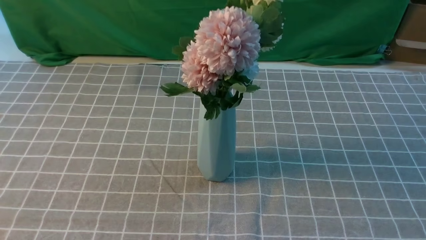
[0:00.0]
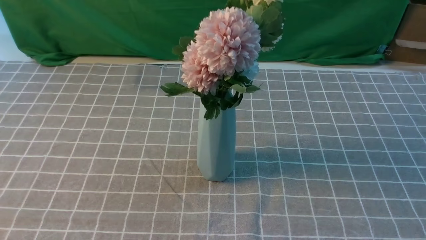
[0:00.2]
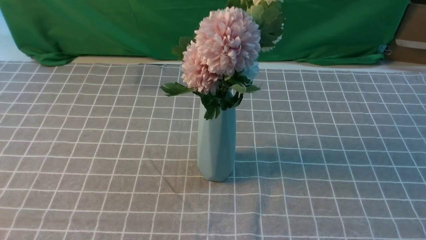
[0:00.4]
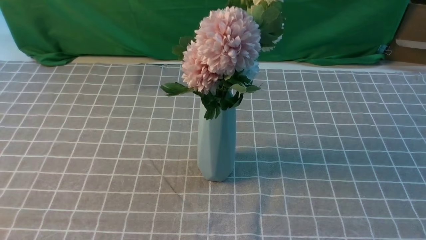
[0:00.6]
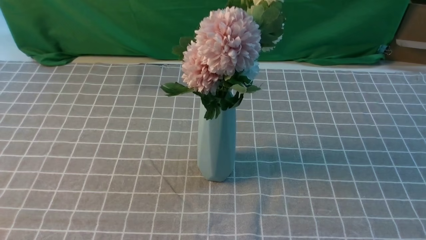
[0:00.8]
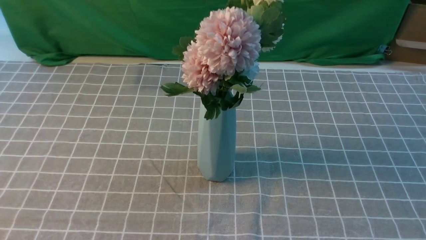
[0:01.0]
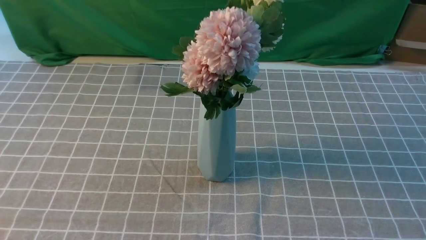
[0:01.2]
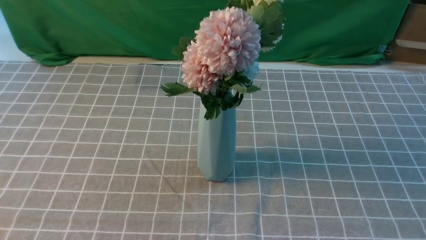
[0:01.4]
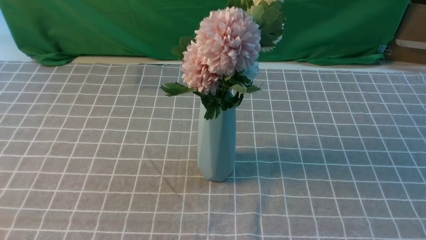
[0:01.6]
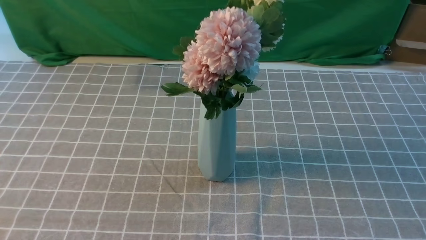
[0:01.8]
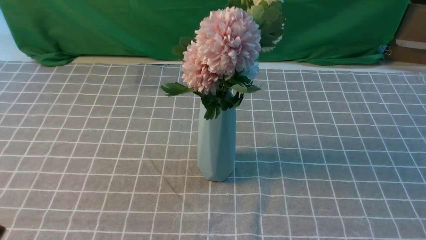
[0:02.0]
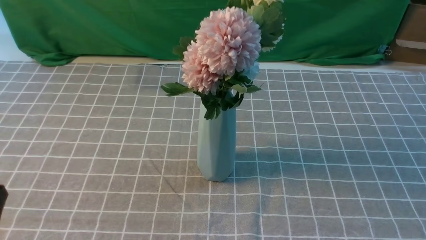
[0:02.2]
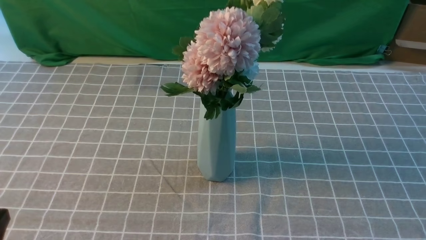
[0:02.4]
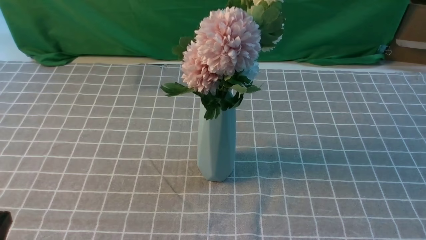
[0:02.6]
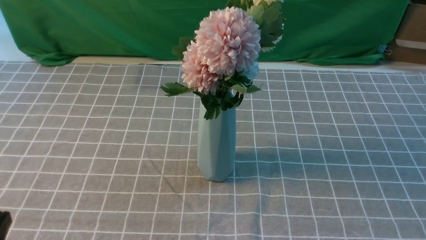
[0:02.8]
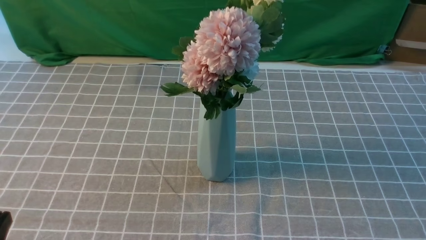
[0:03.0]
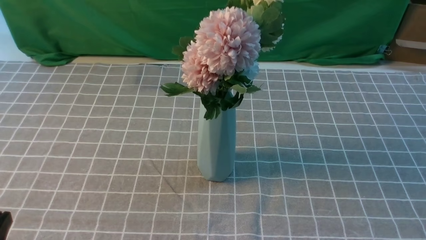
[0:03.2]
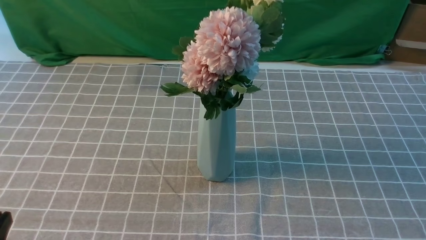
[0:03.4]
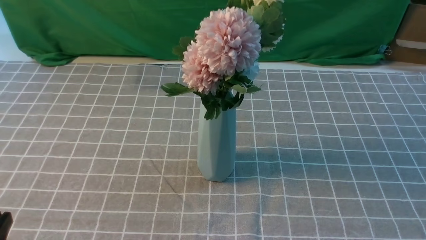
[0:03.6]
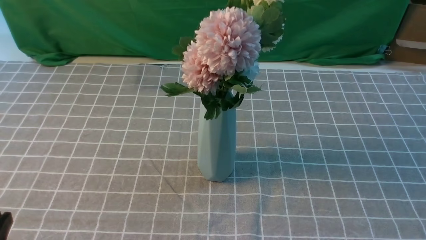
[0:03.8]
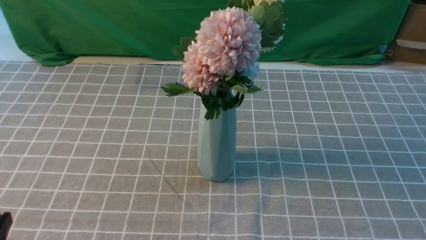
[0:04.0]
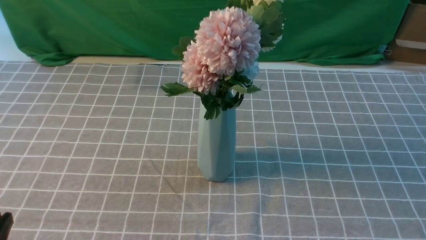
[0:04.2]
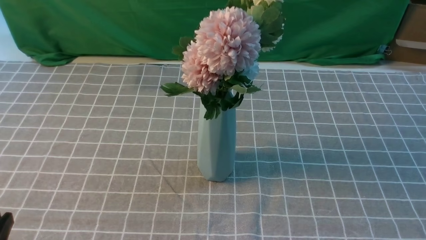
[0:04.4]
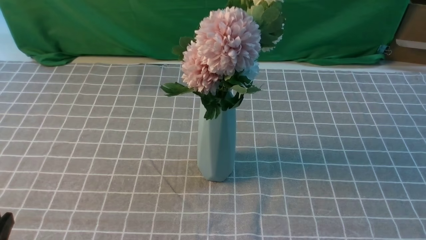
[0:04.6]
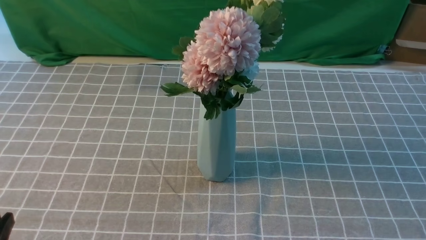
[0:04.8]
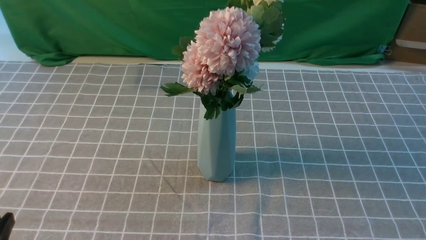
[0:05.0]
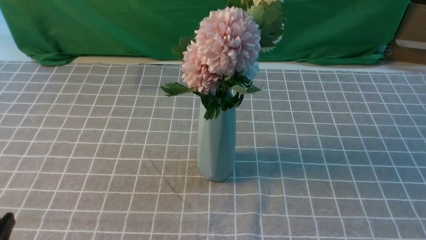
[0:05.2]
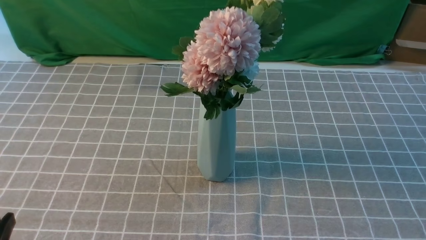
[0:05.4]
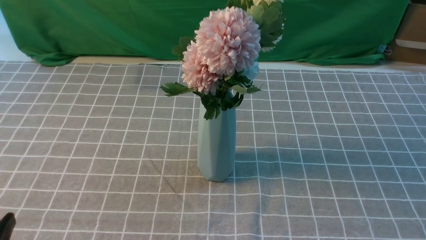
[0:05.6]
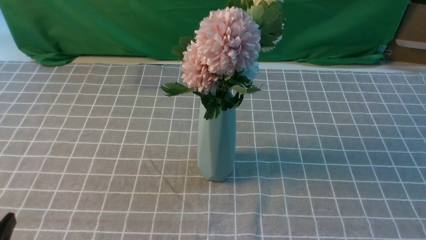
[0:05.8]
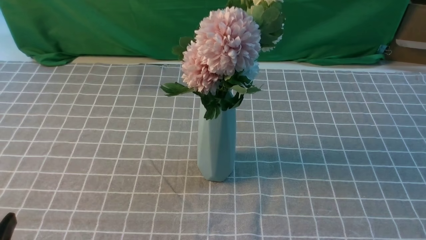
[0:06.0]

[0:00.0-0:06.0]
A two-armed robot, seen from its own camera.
Task of the whole recording: insert the flowers into the vase on the table with the grey tablecloth.
0:04.4 to 0:06.0: The two grippers keep their place.
